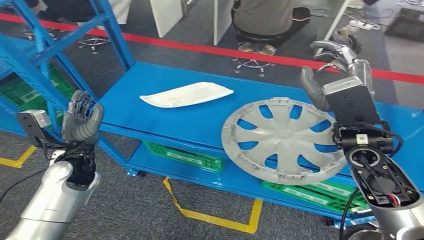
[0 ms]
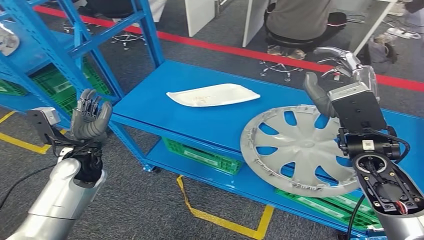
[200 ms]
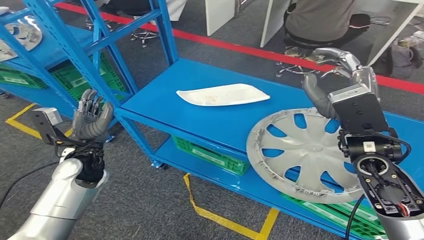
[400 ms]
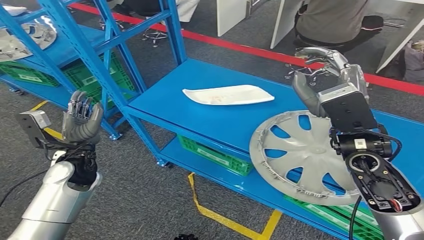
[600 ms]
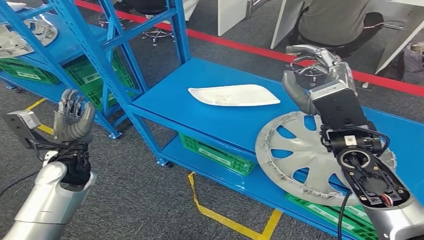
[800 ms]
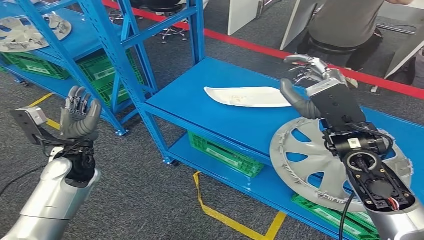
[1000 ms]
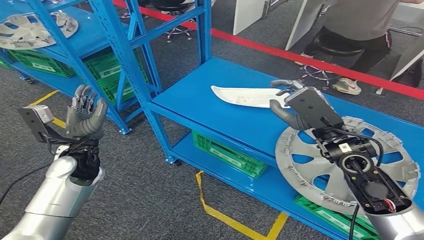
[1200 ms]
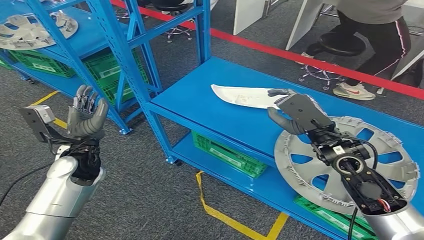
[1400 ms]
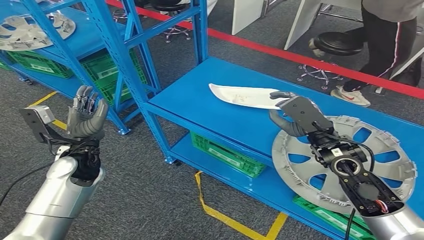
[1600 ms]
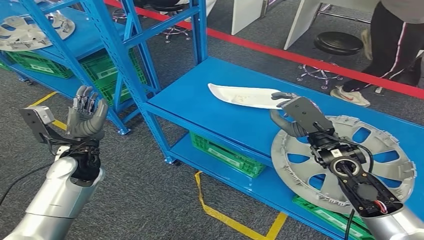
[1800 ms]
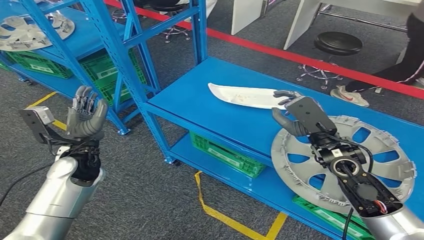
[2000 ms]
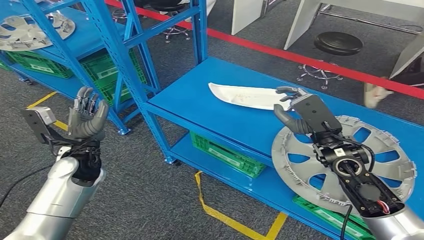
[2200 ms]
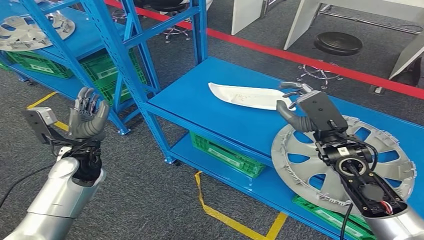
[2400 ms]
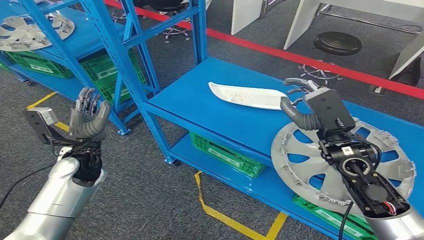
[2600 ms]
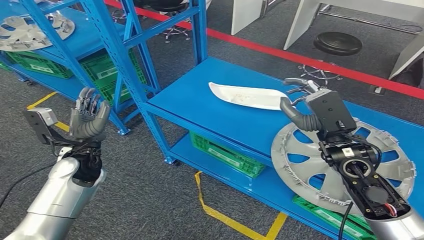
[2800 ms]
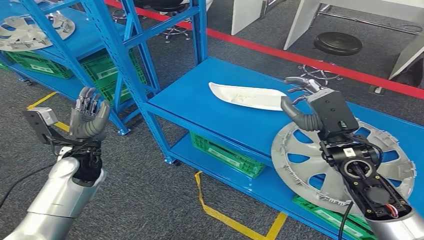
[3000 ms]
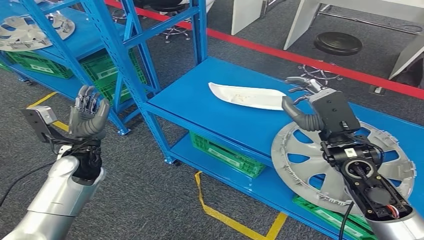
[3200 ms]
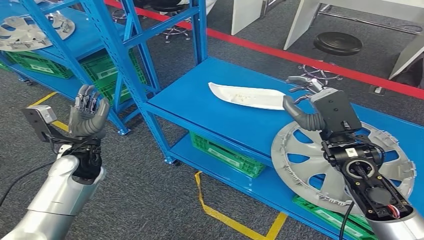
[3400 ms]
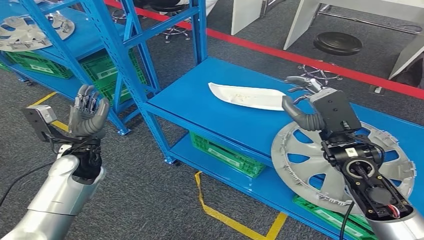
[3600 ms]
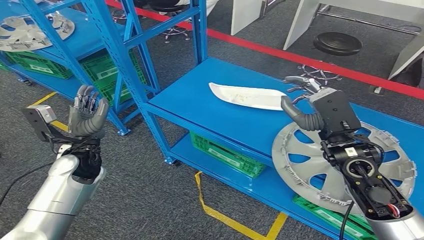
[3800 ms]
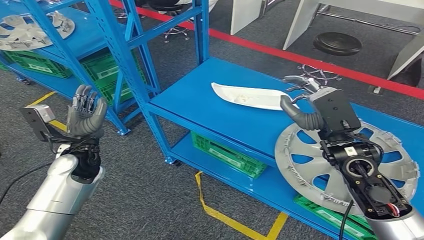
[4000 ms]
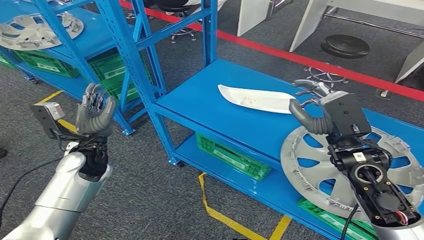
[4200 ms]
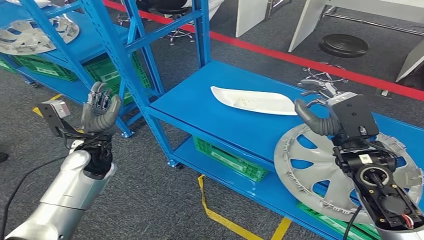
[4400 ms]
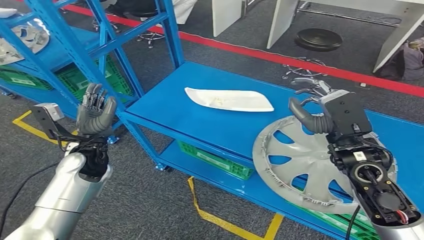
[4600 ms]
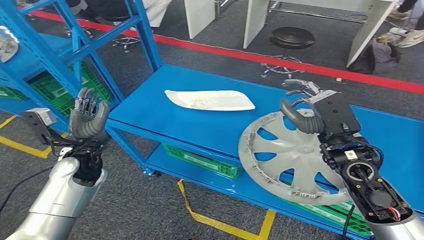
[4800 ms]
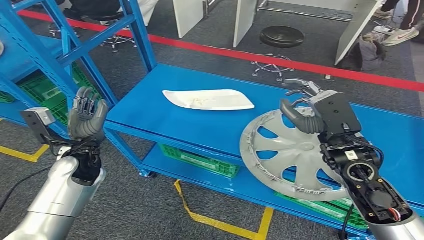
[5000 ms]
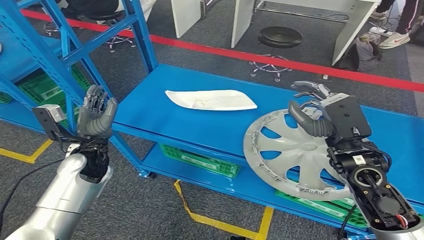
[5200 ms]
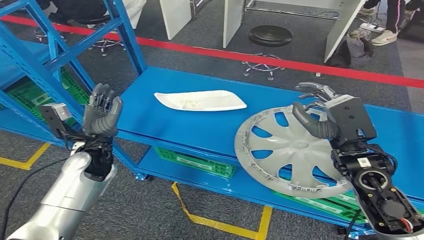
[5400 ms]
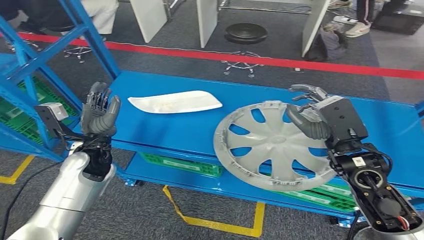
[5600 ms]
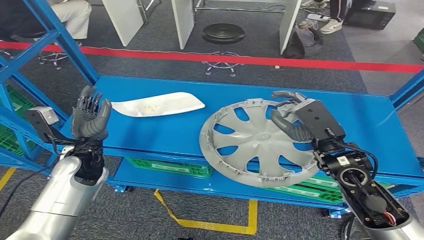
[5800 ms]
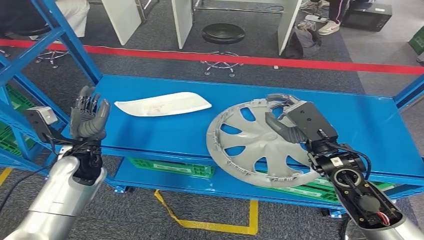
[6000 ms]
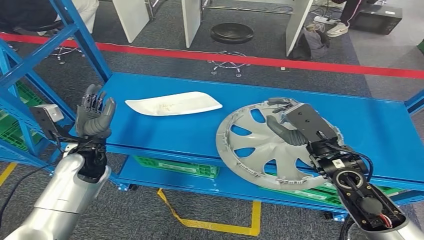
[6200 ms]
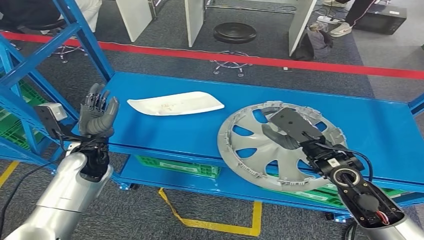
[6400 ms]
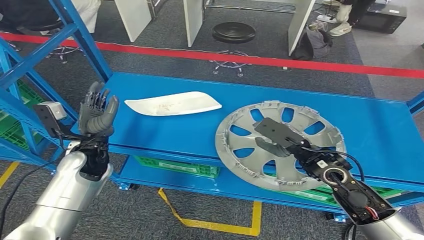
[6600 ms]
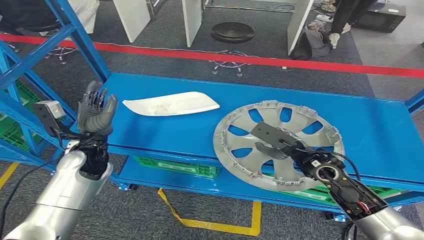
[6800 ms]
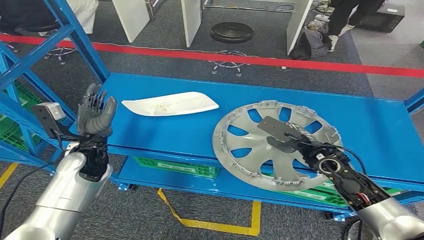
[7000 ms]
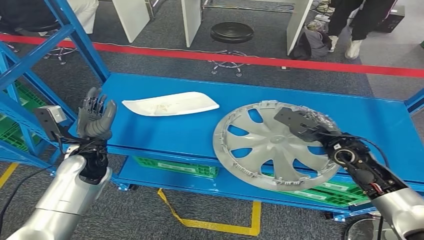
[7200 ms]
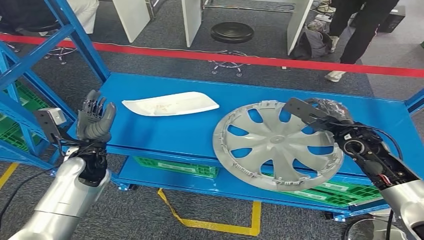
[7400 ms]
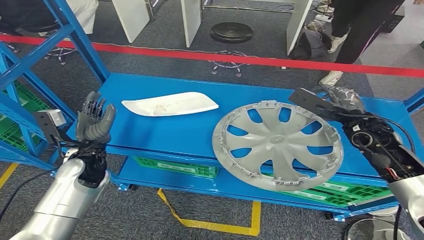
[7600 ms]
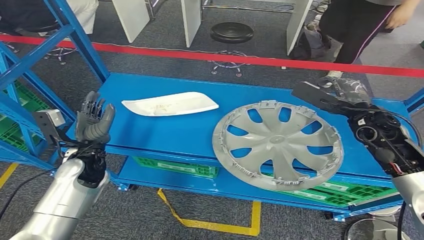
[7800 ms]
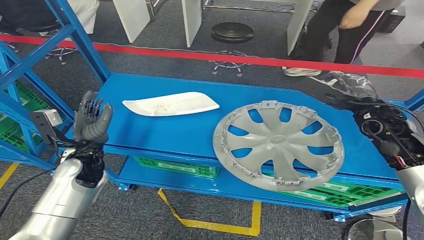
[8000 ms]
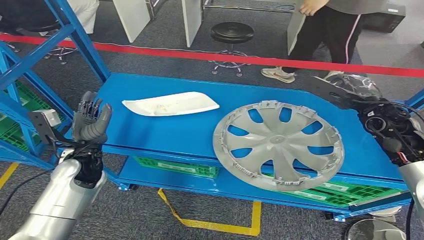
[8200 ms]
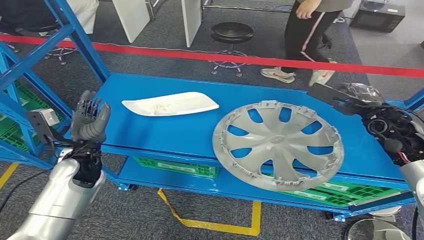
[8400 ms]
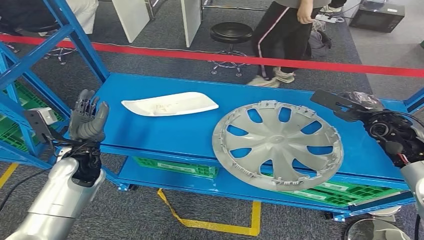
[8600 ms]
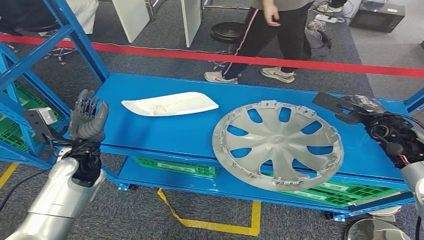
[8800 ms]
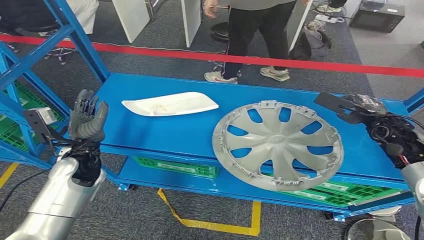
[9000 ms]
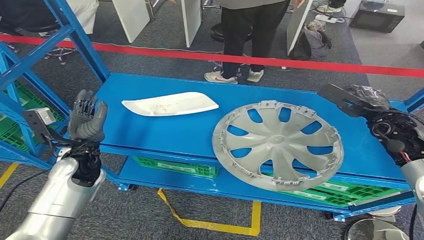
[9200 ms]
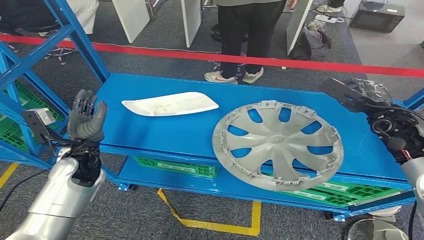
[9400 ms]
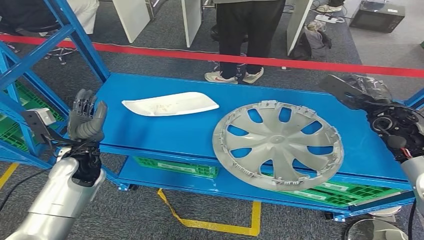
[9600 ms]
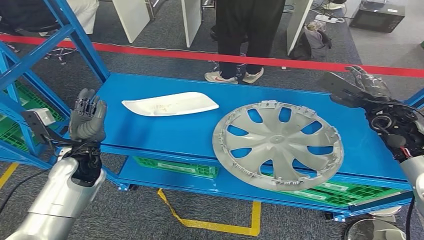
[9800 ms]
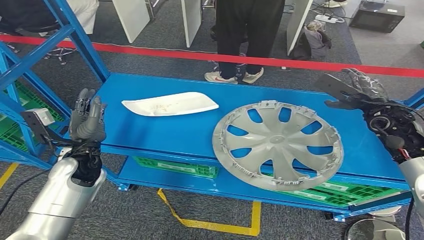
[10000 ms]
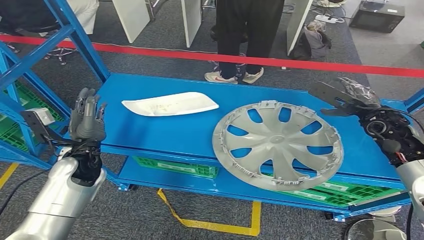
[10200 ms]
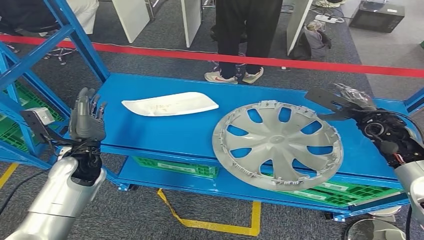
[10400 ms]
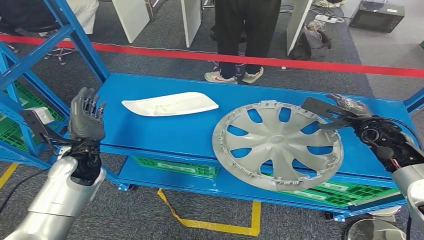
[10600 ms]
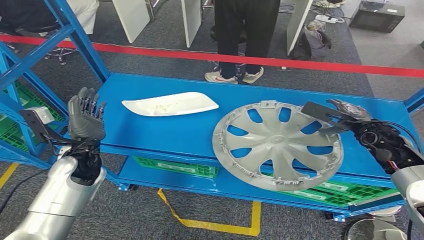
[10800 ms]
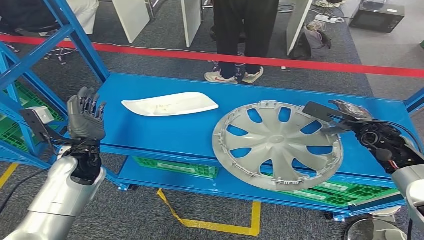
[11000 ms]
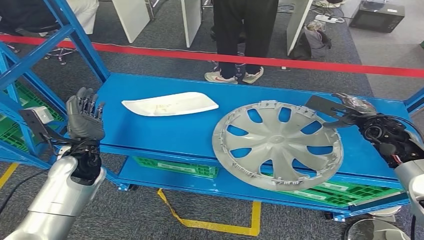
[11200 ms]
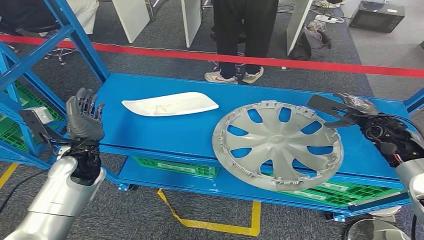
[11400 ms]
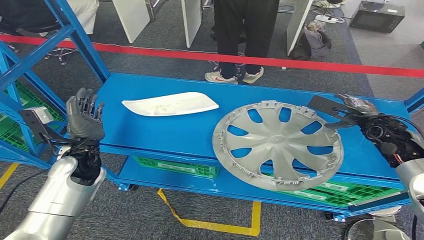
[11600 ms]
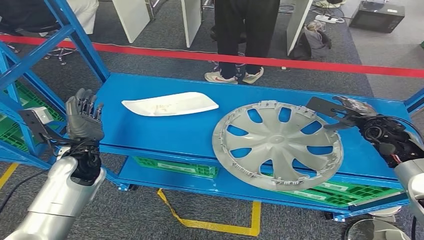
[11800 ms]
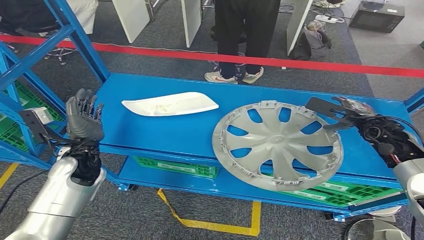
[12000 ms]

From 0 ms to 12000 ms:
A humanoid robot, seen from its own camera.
From 1600 ms to 3000 ms: The hands move only a little.
From 7600 ms to 9000 ms: The right hand goes approximately 5 cm to the right.
From 9000 ms to 12000 ms: The hands stay close to where they were, moving slightly.

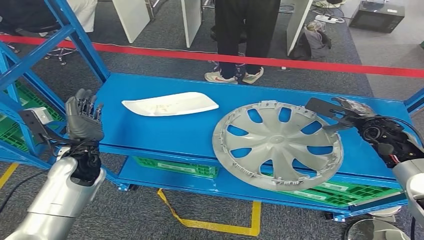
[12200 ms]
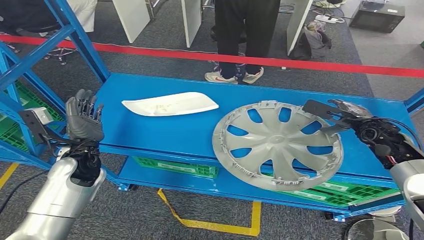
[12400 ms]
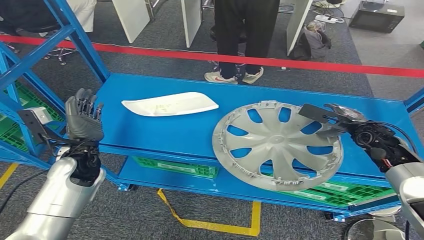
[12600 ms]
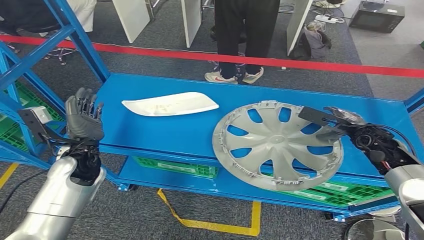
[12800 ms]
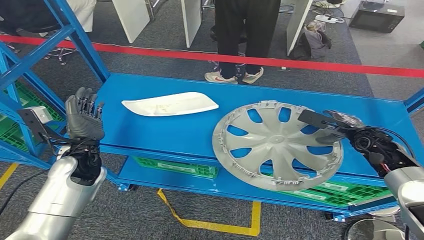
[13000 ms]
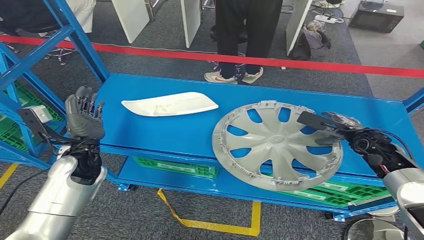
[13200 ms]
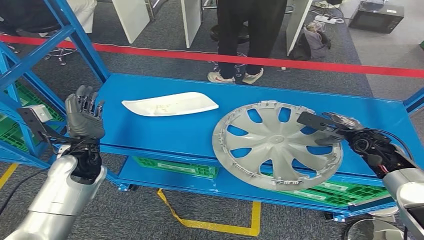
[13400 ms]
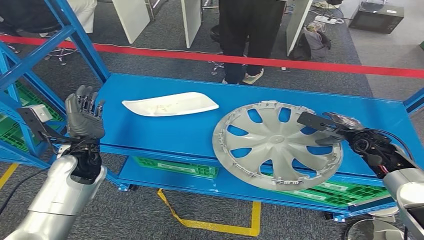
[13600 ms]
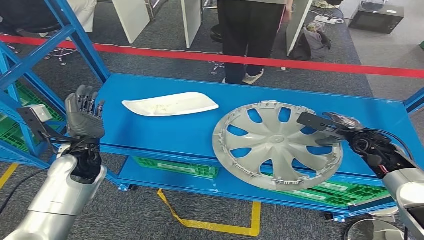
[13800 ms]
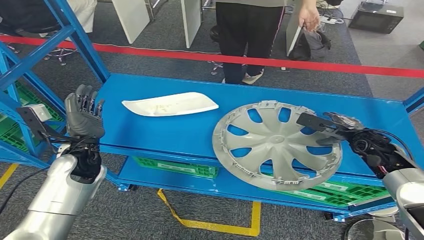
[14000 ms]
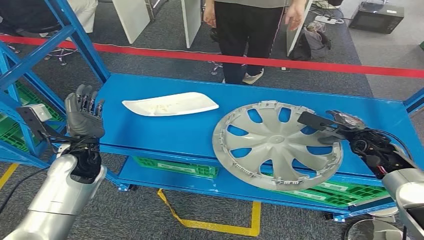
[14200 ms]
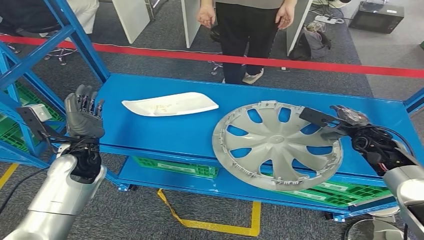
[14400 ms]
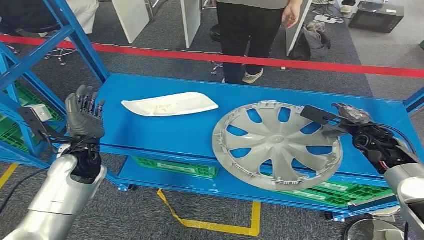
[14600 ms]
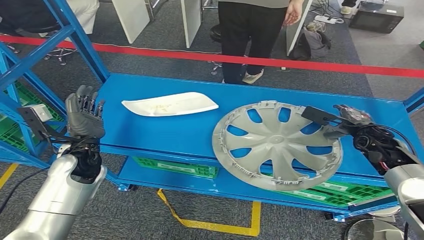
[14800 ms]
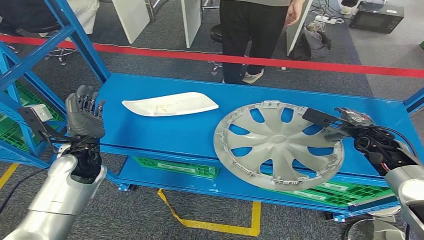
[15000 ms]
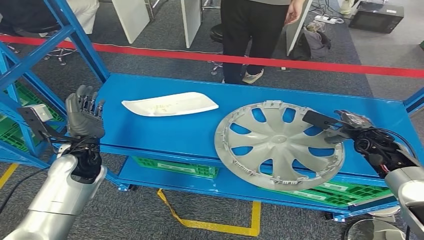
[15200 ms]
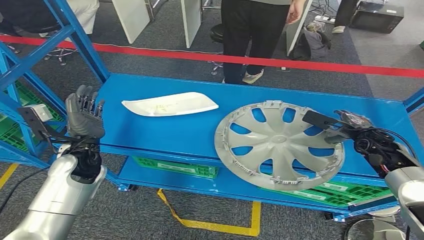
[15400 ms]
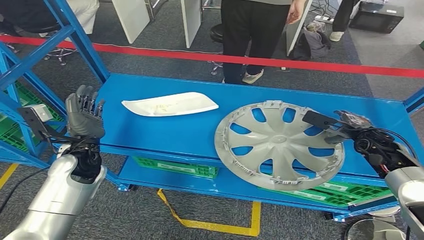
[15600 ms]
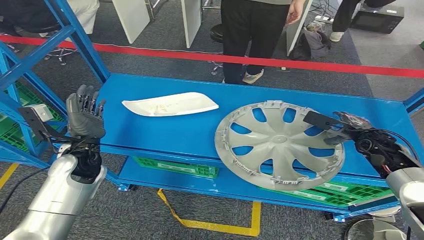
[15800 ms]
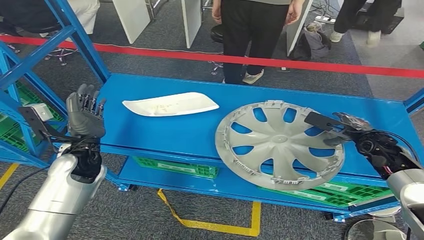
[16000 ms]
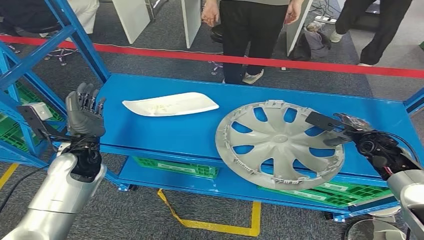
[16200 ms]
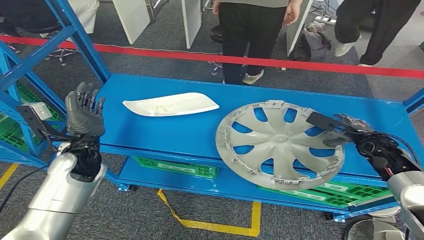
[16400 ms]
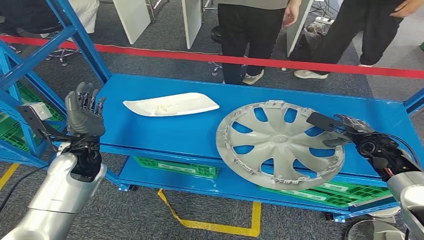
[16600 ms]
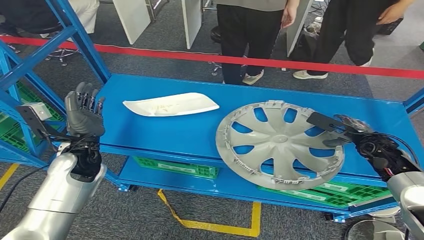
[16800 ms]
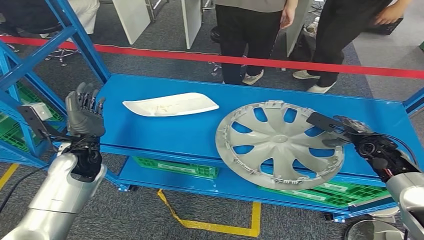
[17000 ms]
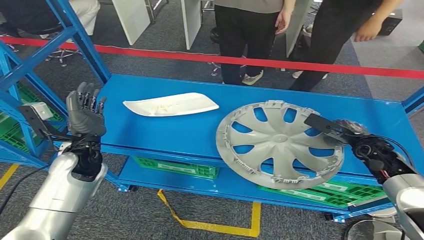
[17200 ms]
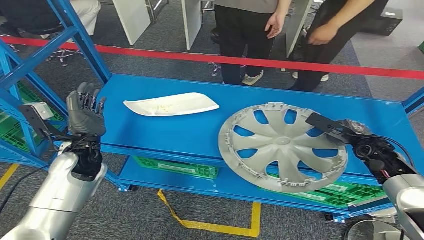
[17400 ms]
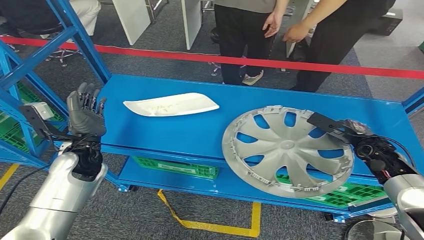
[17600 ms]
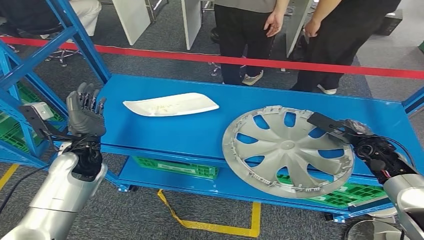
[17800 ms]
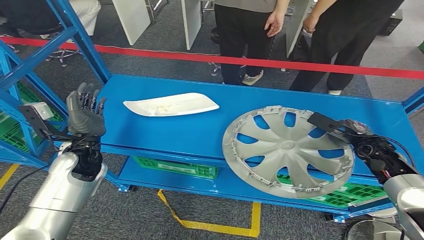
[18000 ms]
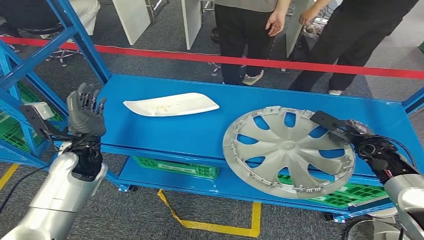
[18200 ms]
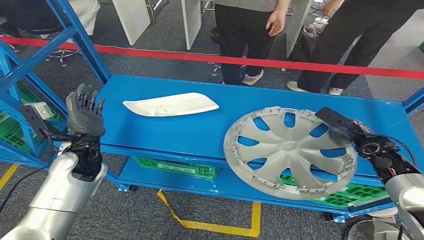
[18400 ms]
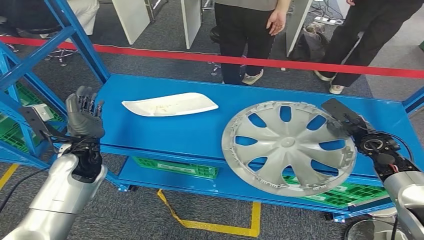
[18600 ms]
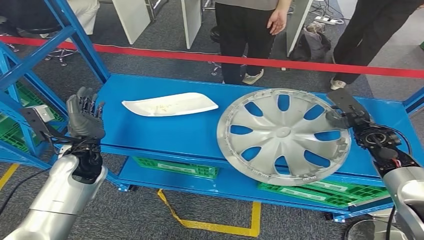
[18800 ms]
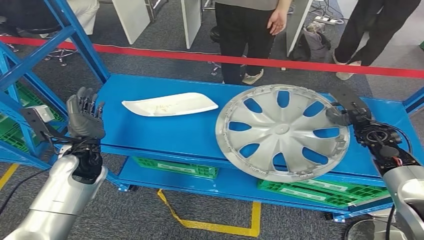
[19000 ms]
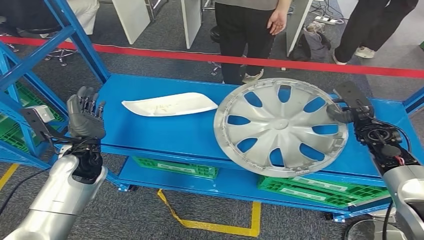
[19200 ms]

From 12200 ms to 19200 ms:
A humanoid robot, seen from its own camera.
From 12200 ms to 16400 ms: The hands stay close to where they were, moving slightly.
From 16400 ms to 17800 ms: The hands stay close to where they were, moving slightly.
